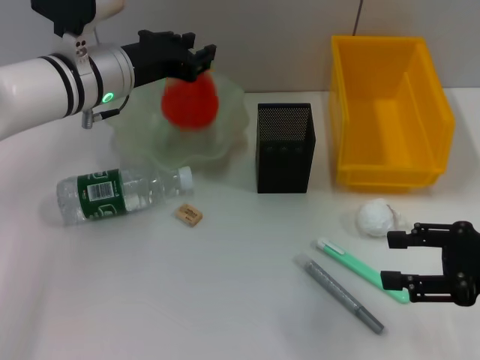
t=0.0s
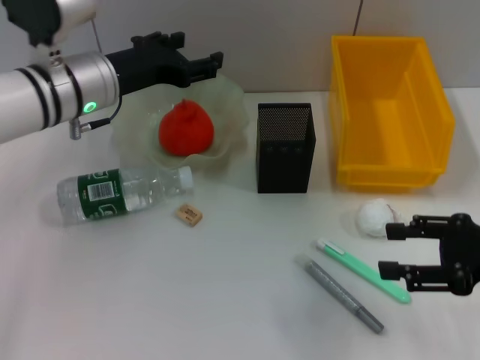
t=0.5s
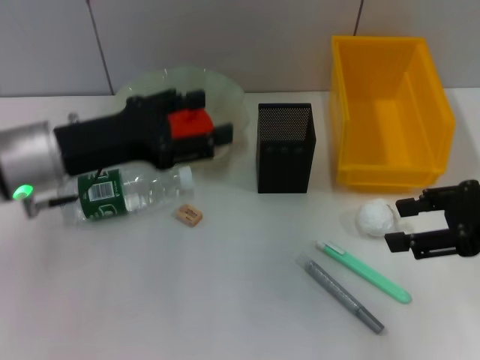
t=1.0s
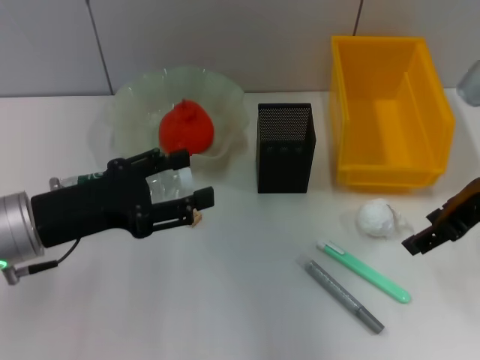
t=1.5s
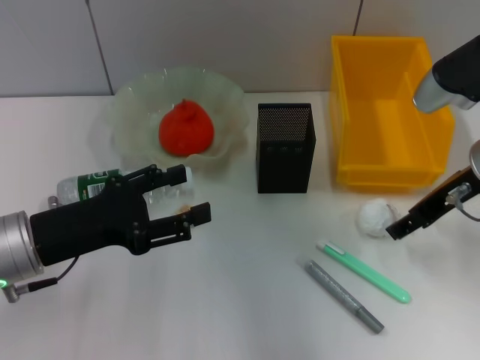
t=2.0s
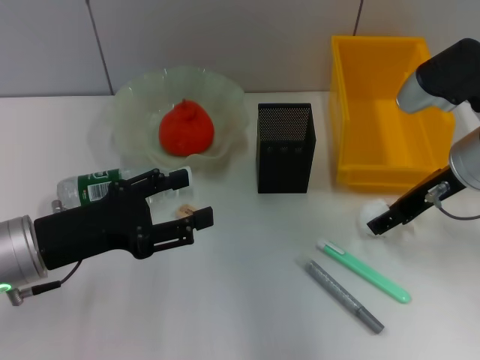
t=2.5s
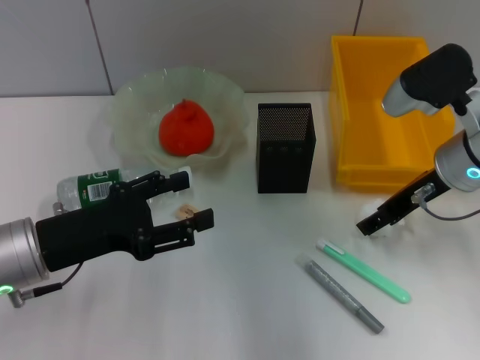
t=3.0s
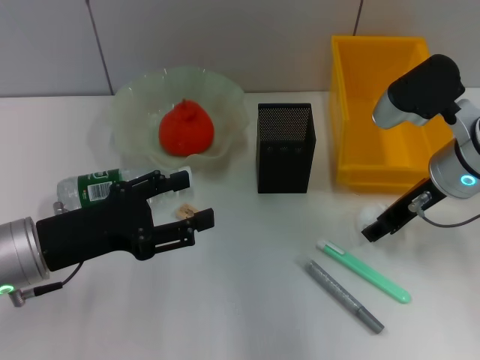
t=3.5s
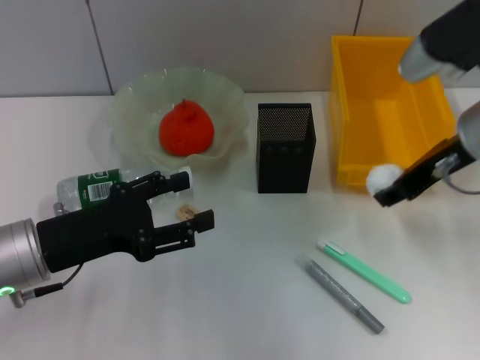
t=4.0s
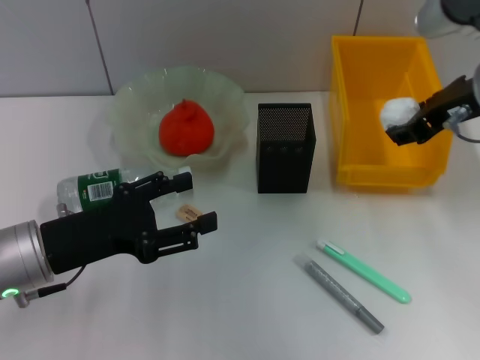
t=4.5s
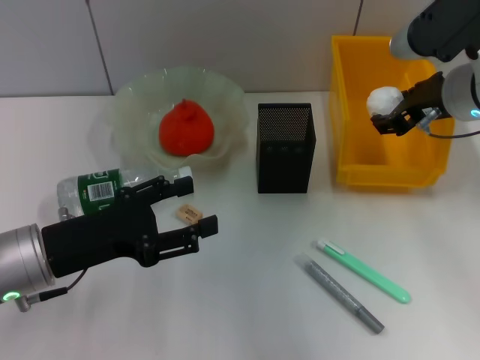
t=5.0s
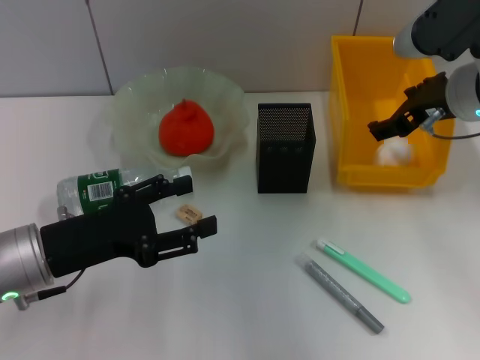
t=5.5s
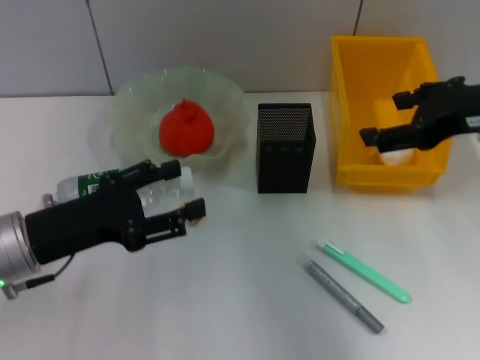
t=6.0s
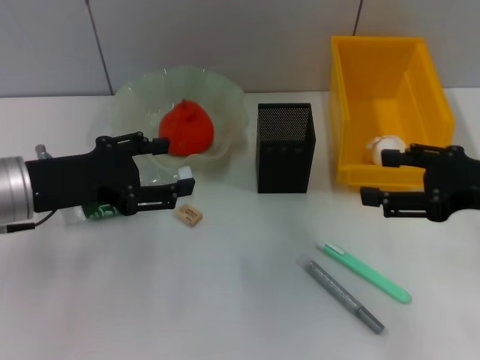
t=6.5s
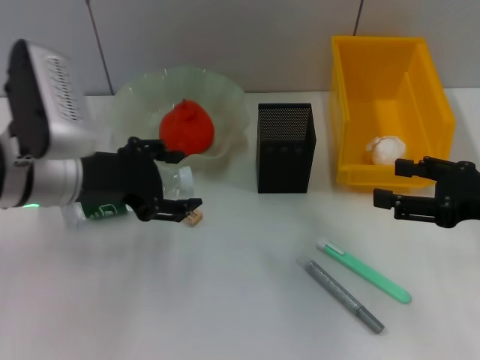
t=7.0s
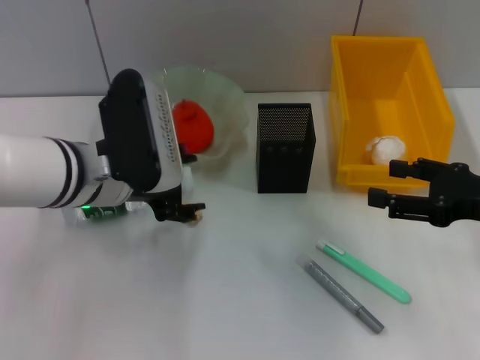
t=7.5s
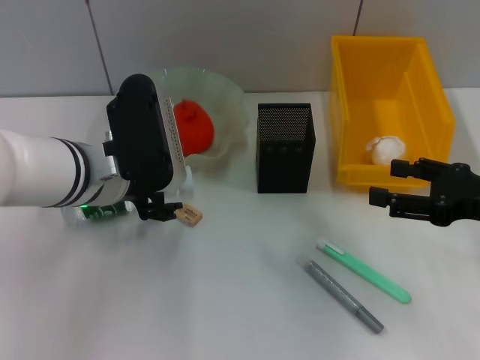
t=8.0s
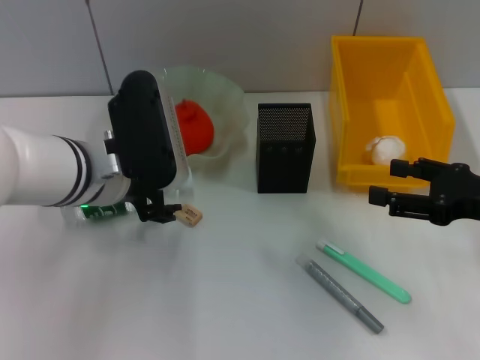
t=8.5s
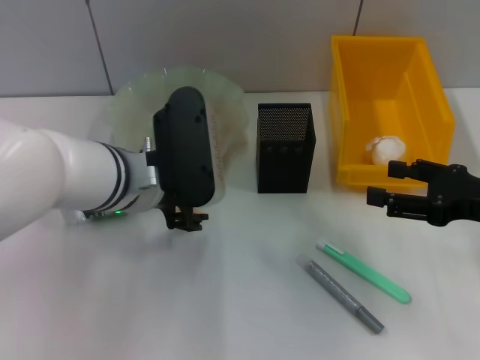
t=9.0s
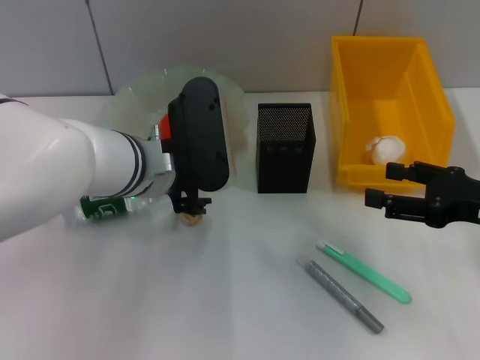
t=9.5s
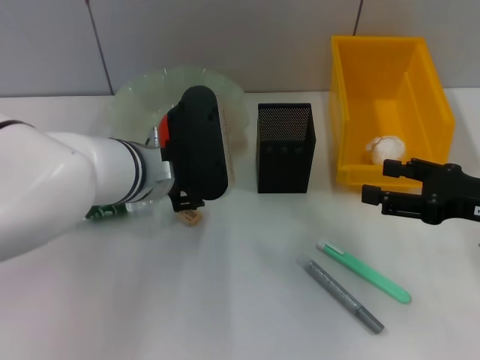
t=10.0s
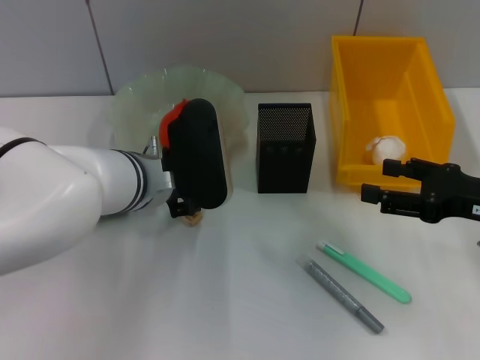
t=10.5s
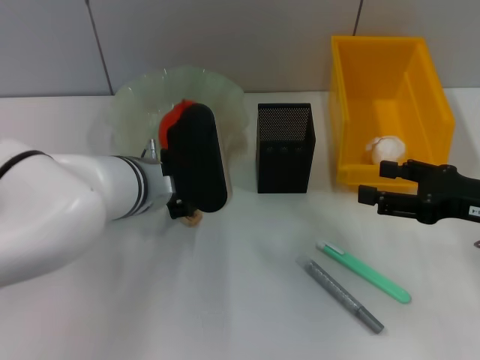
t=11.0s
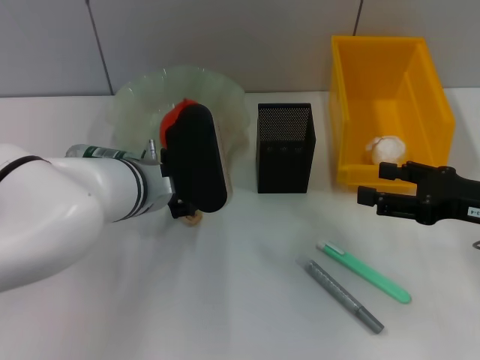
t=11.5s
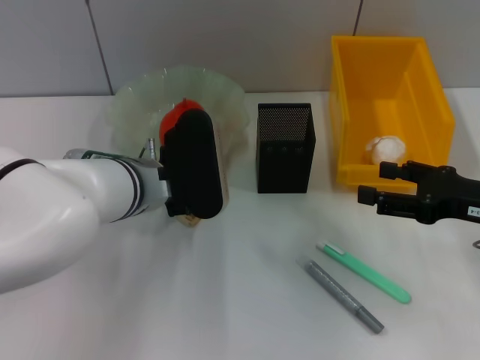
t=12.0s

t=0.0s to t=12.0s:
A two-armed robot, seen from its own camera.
Step, t=0.5s to t=3.0s: Grab the paper ball with the right hand.
Step, t=3.5s to t=5.0s: Place the paper ball into the trash can with the right hand.
t=0.0s to t=2.0s: The left gripper is displaced backward and to the left by about 20 cm, and opens its fingers. The right gripper shifts roughly 15 cm forward, to the left and upward.
t=2.0s to t=4.0s: The right gripper closes up.
t=4.0s to t=6.0s: The right gripper ends up about 5 cm from where it was, and opens up.
t=6.0s to t=8.0s: The right gripper is displaced downward and to the right by roughly 10 cm. Meanwhile the left gripper shifts about 10 cm to the right and forward.
t=8.0s to t=12.0s: There are only small adjustments of the grippers.

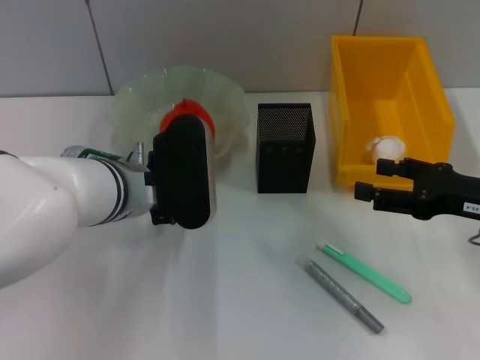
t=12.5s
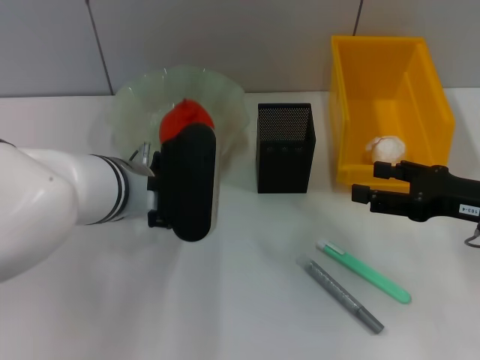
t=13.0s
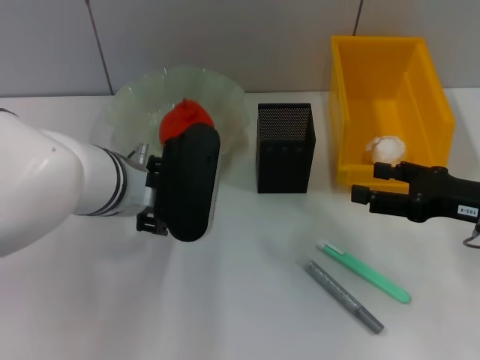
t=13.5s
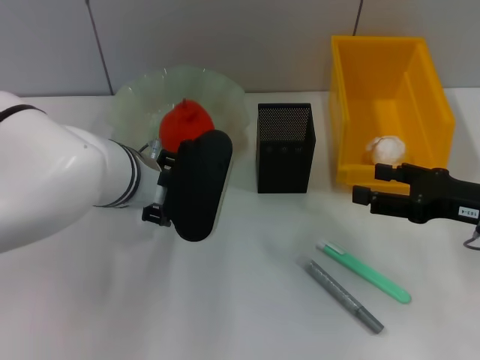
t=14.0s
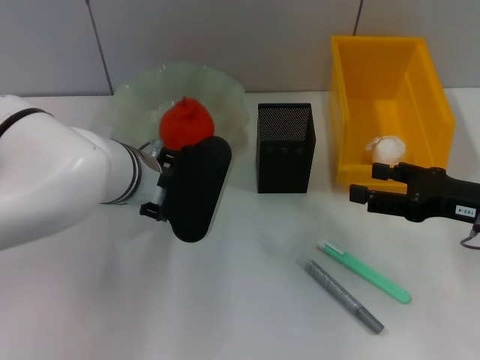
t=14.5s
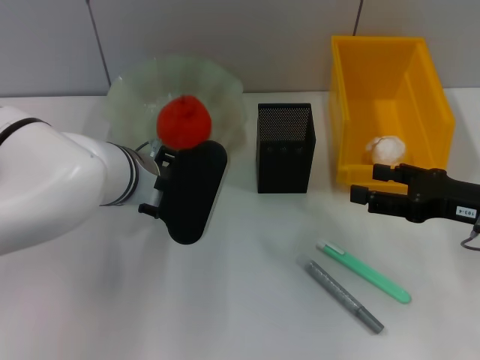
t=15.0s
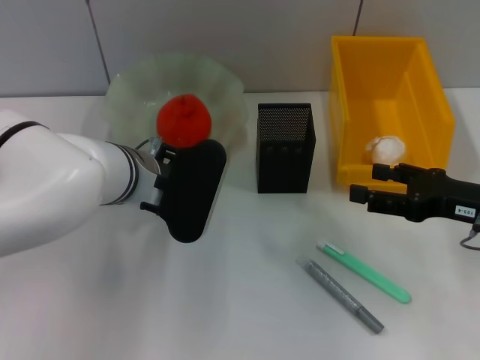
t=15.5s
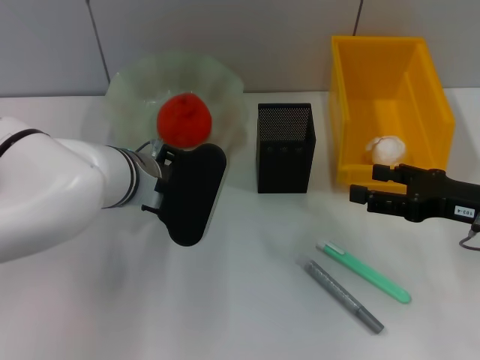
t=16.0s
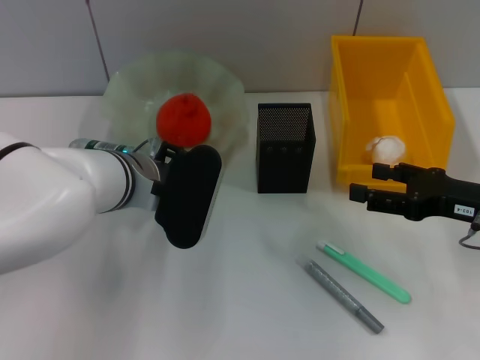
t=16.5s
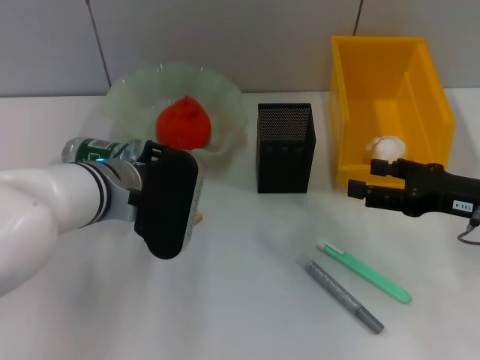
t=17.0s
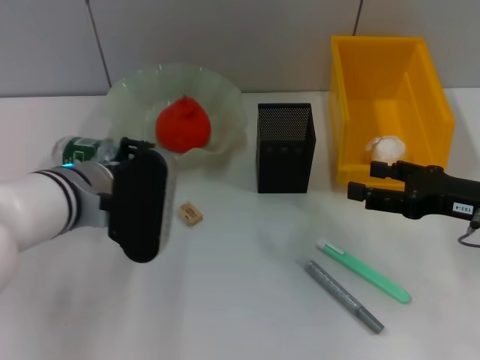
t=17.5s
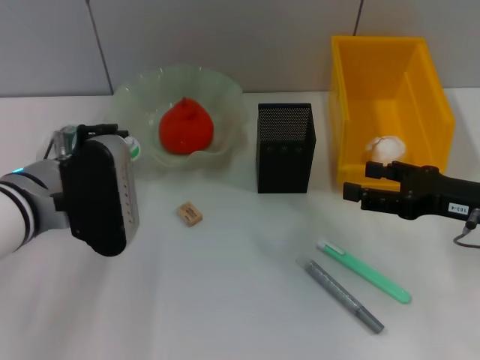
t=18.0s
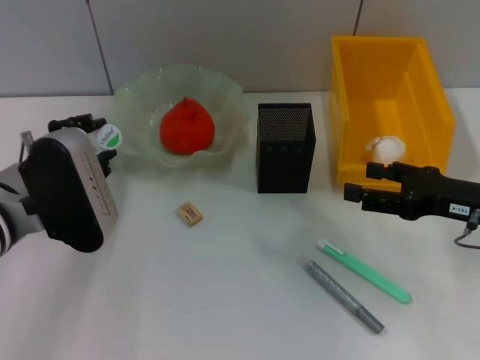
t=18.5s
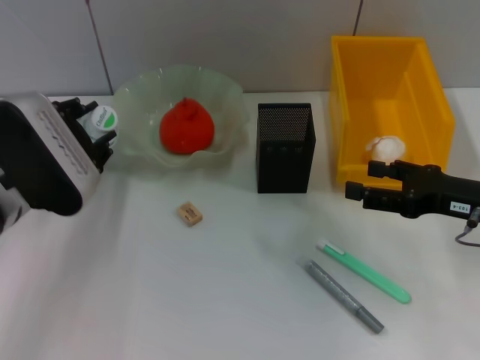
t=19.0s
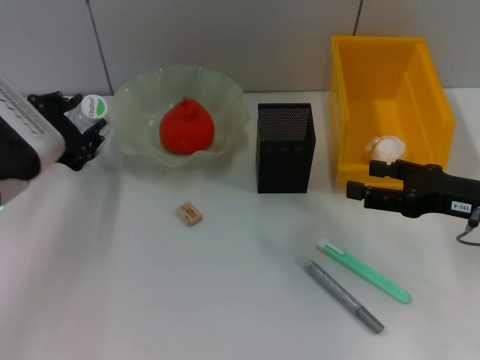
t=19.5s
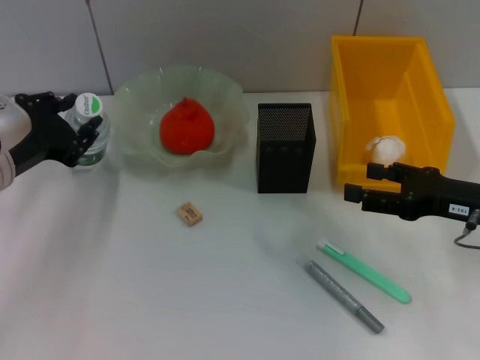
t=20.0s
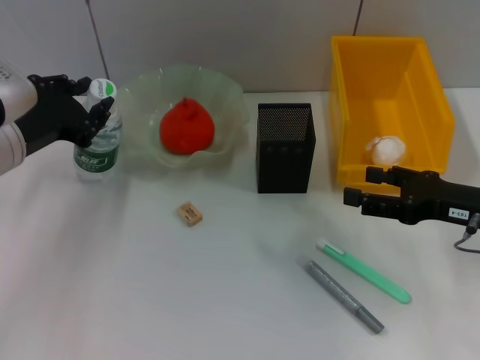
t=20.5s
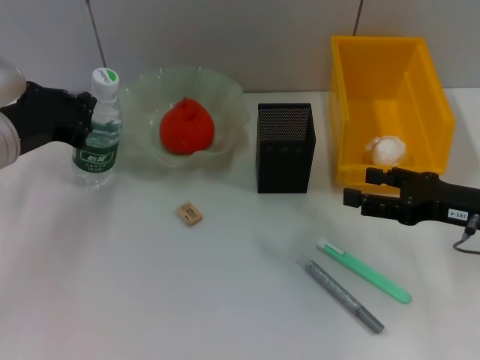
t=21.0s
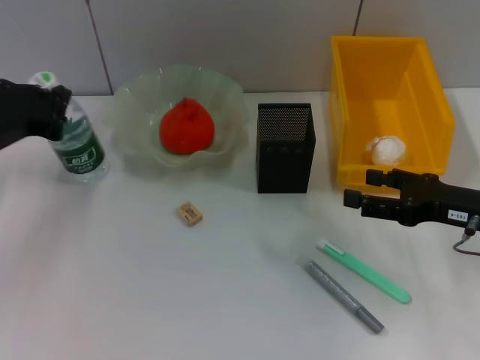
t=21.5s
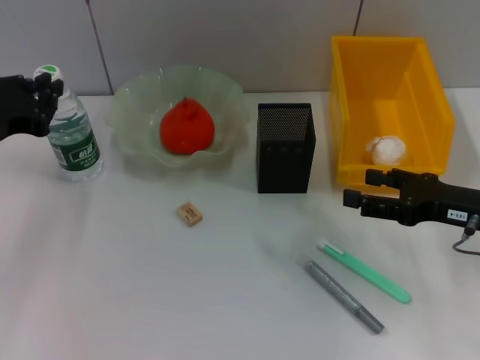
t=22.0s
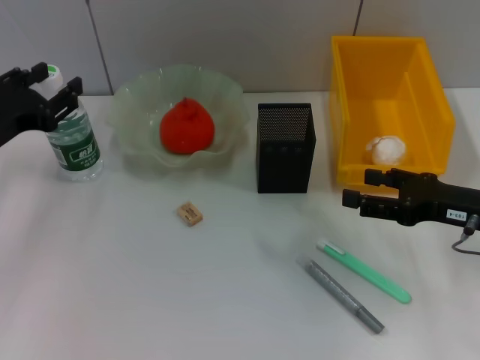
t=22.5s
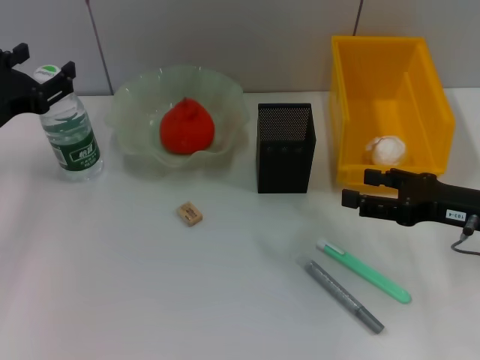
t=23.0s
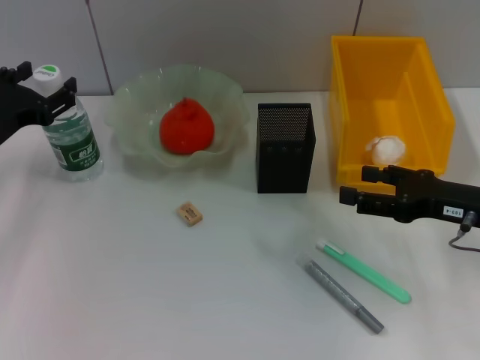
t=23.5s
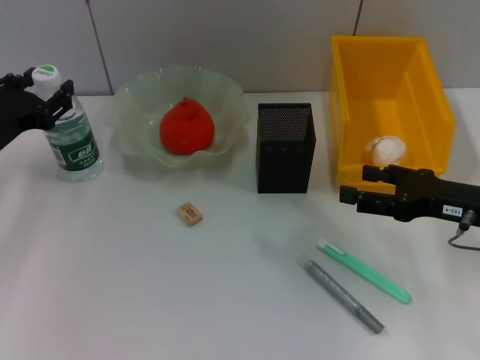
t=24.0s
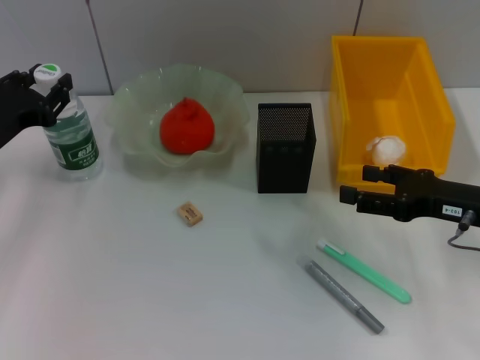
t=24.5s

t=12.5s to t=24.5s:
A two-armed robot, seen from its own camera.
t=14.5s to t=16.5s: The left gripper closes.
t=16.5s to t=18.5s: The left gripper shifts some 10 cm to the left and backward.
t=18.5s to t=20.5s: The left gripper moves about 5 cm.
t=20.5s to t=22.5s: The left gripper is displaced to the left by some 5 cm, and closes, then opens again.
t=22.5s to t=24.5s: The left gripper opens, then closes once more.

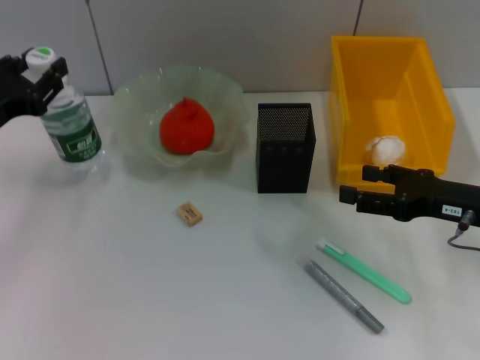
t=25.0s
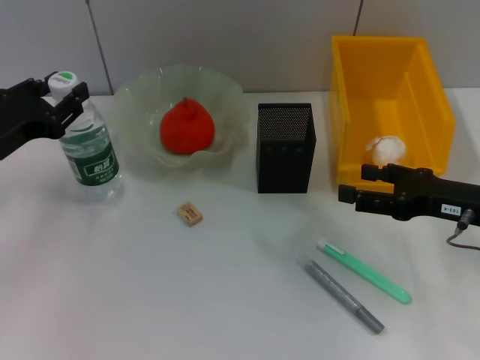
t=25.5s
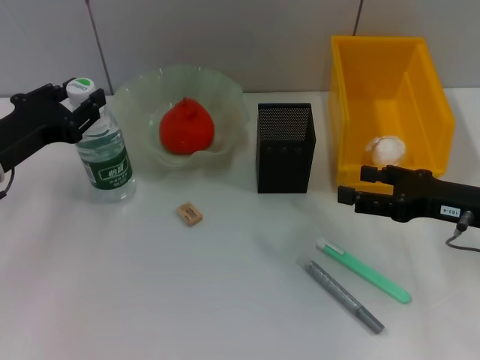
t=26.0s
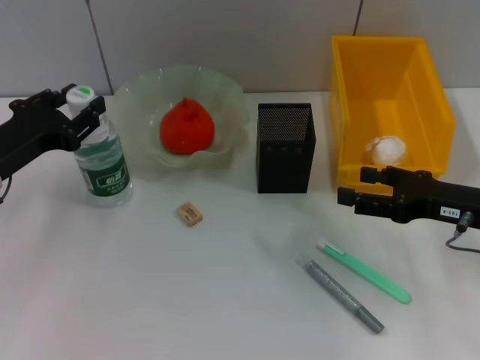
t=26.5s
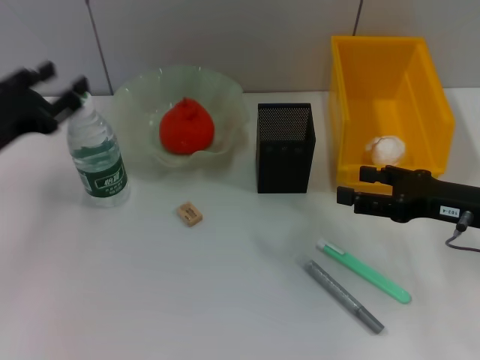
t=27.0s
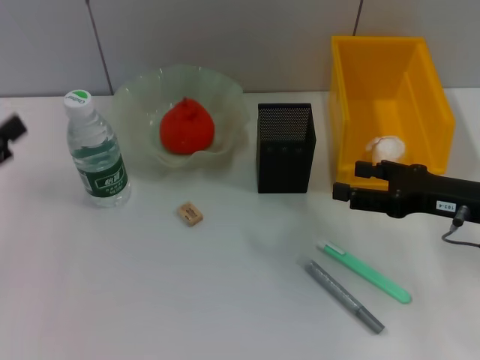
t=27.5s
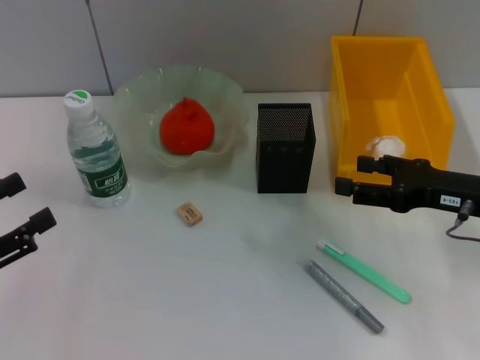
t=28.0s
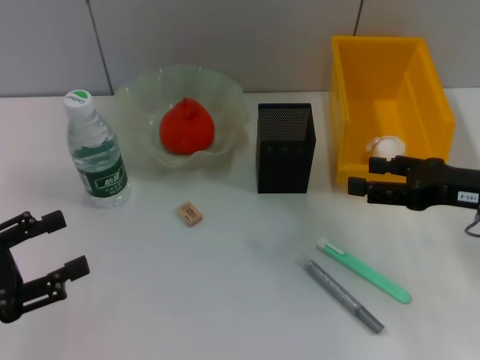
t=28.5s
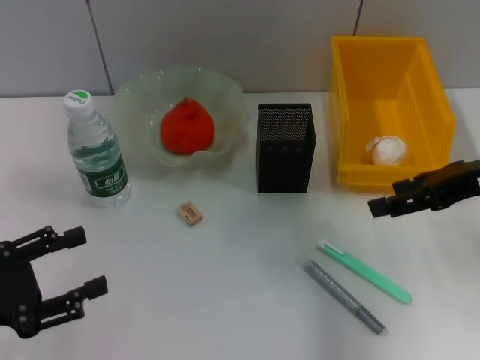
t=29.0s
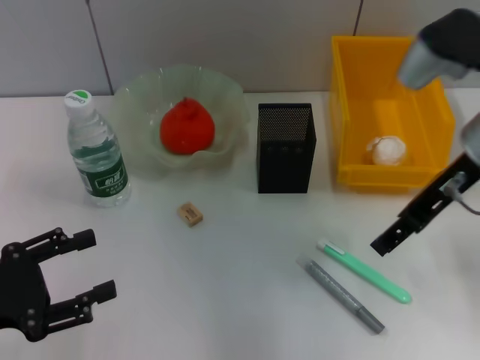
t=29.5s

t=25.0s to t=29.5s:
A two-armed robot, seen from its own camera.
t=25.0s to t=27.0s: The grippers move only a little.
t=27.0s to t=29.5s: The right gripper goes some 15 cm upward and to the left. Meanwhile the left gripper moves backward, some 10 cm.
